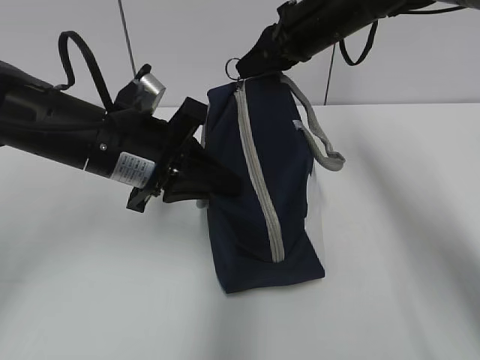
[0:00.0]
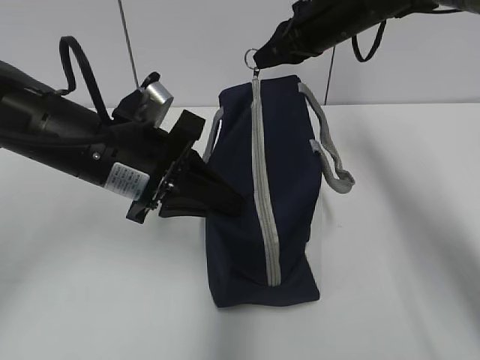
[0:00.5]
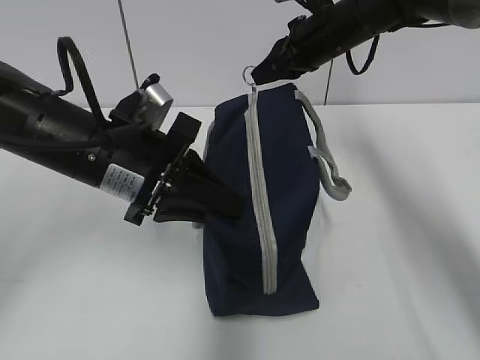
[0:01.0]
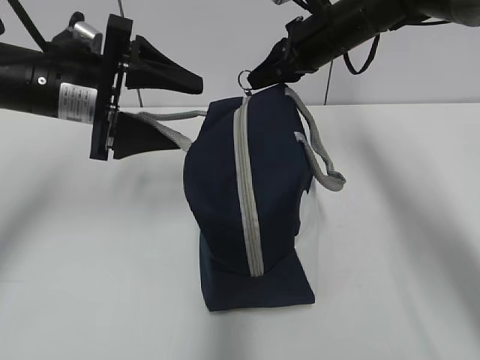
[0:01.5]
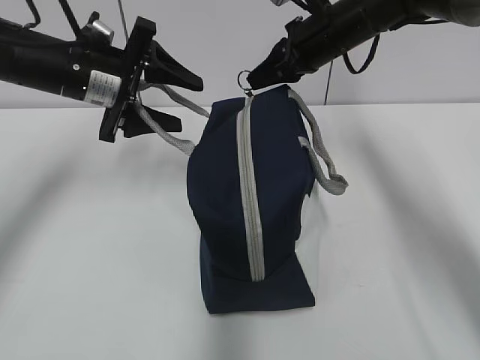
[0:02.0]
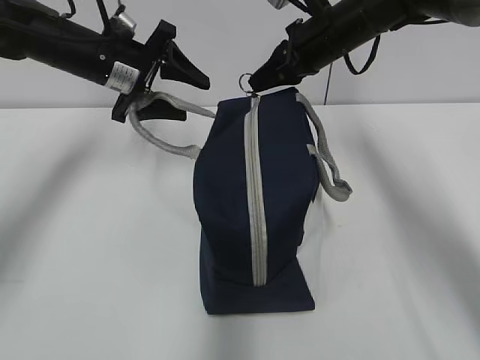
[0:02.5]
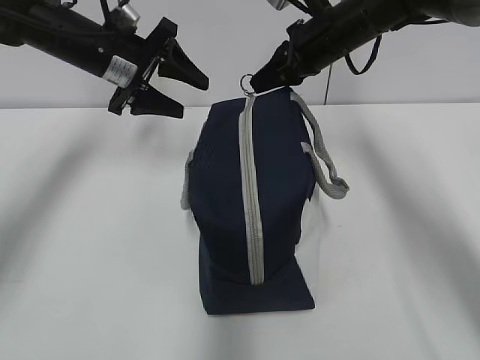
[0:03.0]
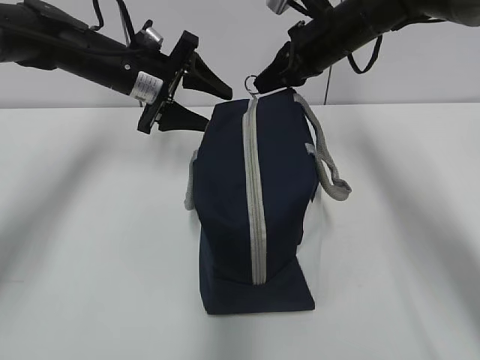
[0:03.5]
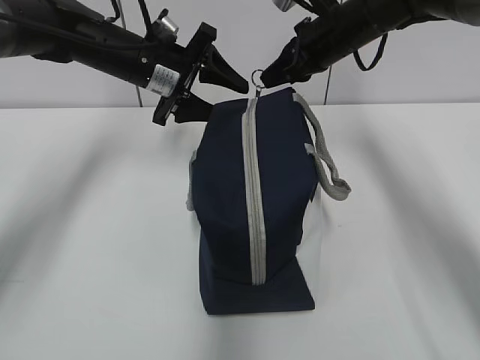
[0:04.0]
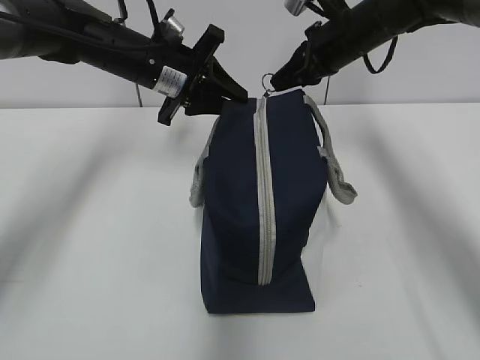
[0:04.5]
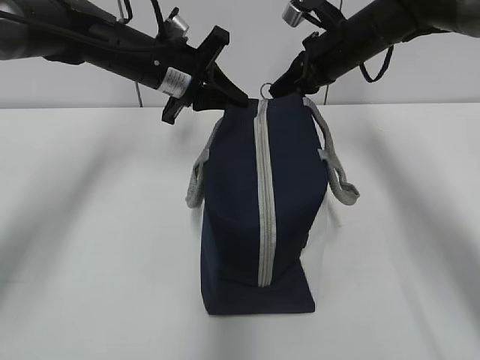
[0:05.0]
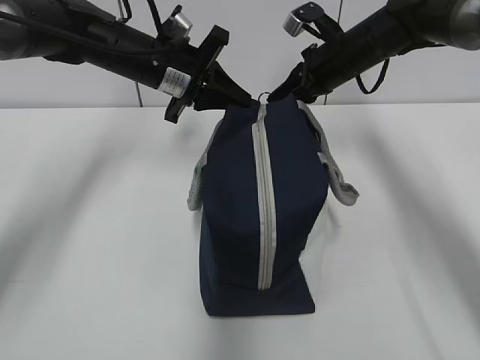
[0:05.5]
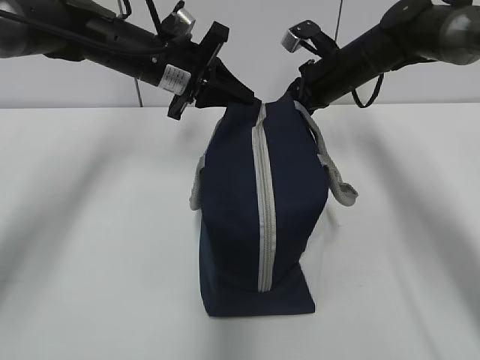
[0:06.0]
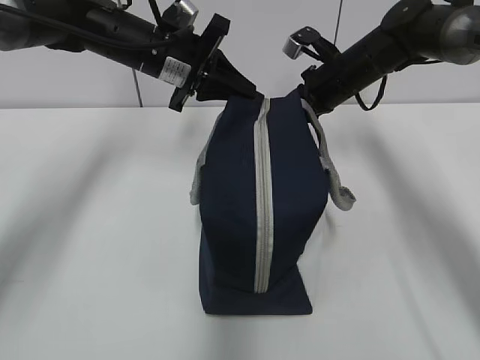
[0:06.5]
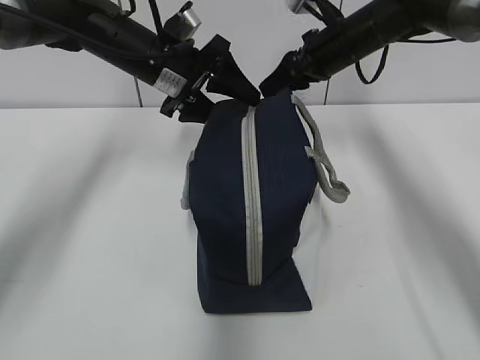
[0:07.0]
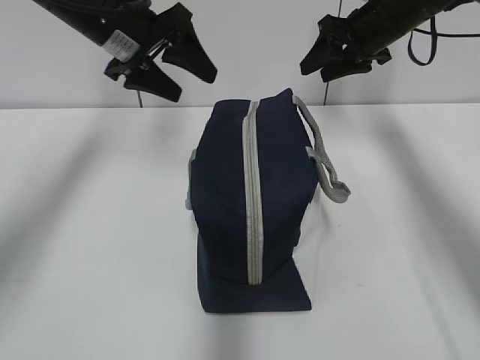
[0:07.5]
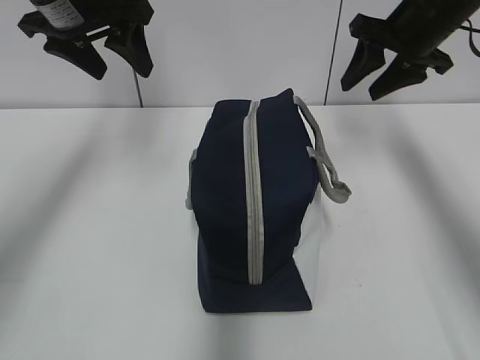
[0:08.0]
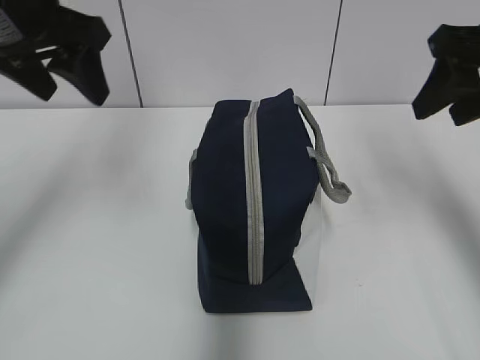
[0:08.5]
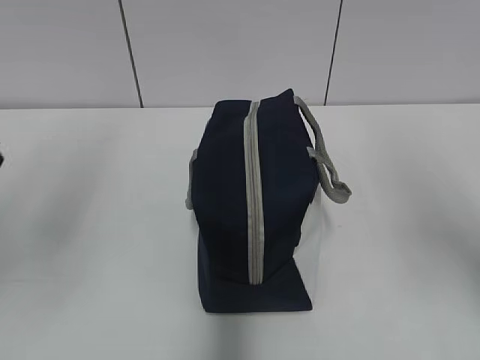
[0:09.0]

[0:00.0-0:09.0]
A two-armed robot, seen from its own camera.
0.0 to 2.0 s: The left gripper heads forward and to the left, covering about 10 cm, and opens its fingers.
2.0 to 4.5 s: The left gripper is displaced forward and to the right by approximately 10 cm, and closes.
4.5 to 7.0 s: The left gripper opens. Meanwhile the right gripper opens its fingers.
7.0 to 9.0 s: The left gripper is displaced backward, to the left and upward by approximately 30 cm. Meanwhile the right gripper moves backward, some 30 cm.

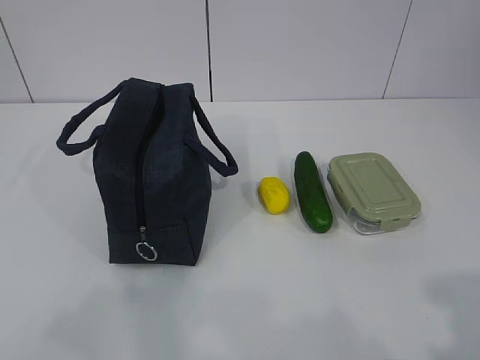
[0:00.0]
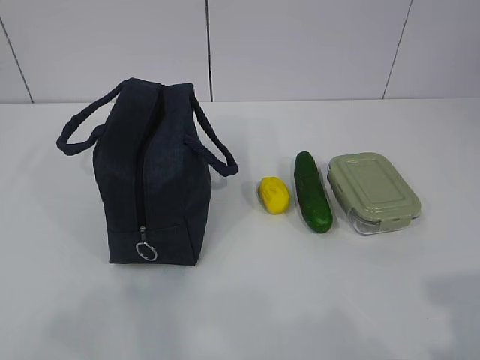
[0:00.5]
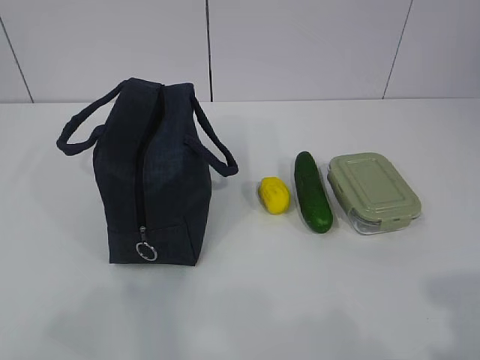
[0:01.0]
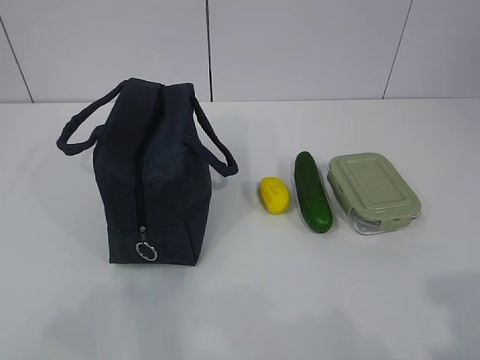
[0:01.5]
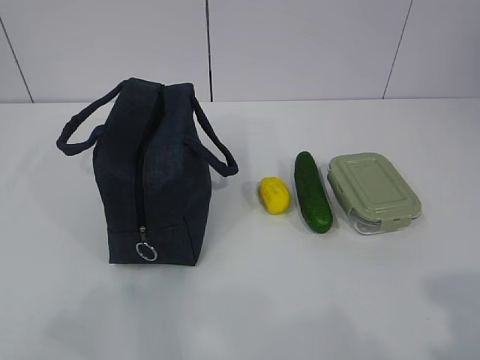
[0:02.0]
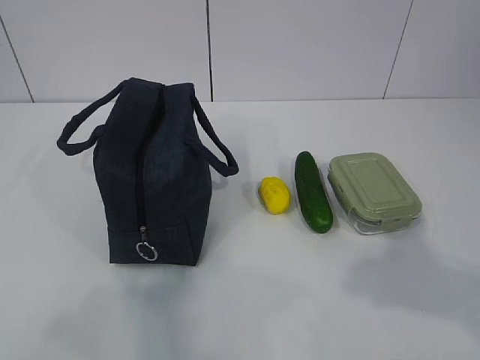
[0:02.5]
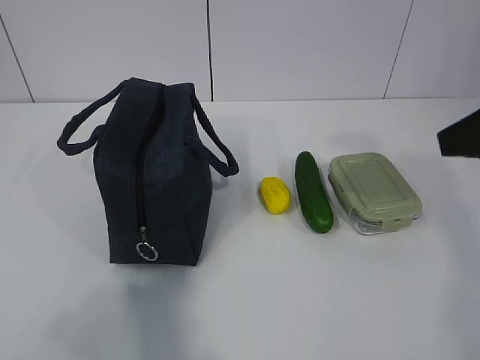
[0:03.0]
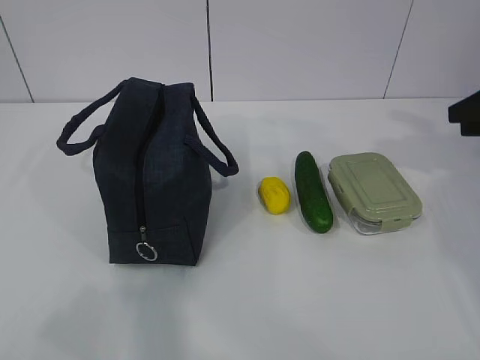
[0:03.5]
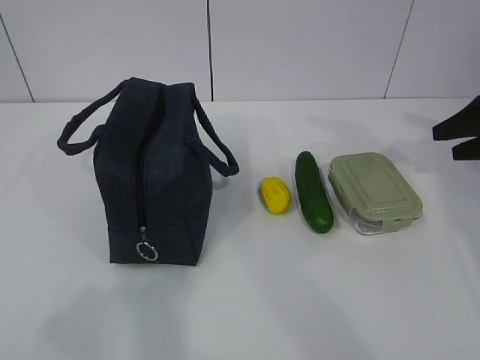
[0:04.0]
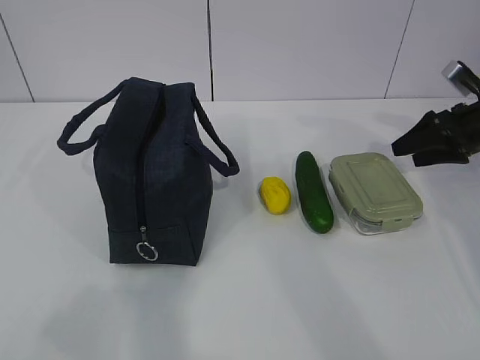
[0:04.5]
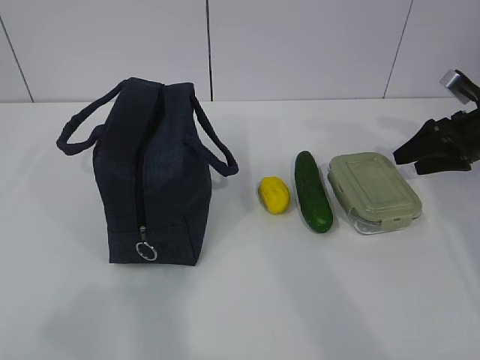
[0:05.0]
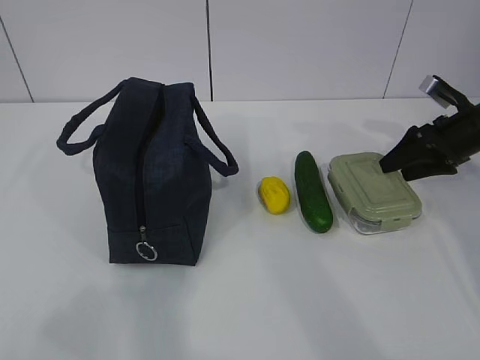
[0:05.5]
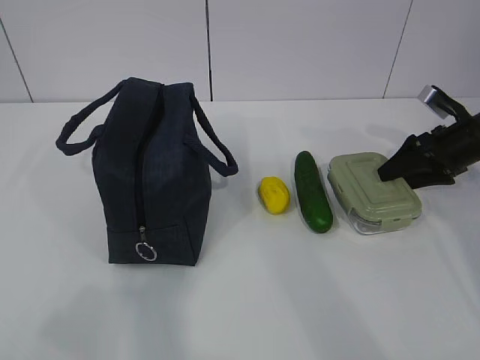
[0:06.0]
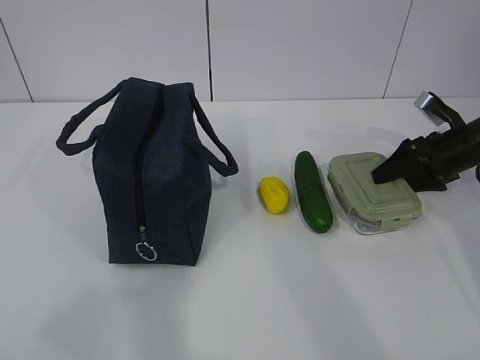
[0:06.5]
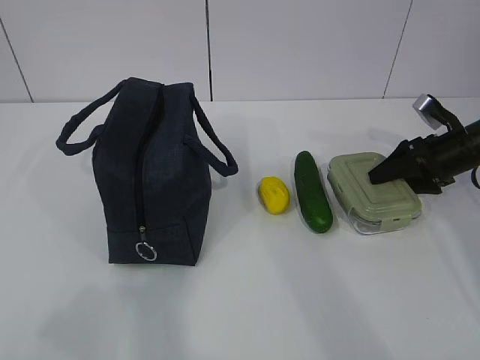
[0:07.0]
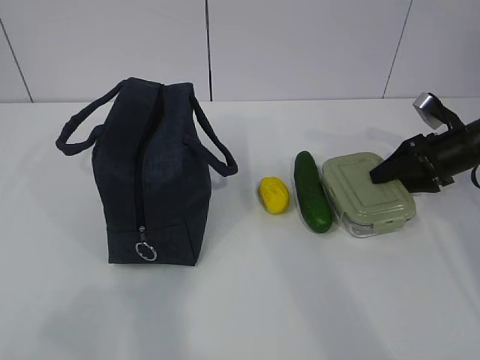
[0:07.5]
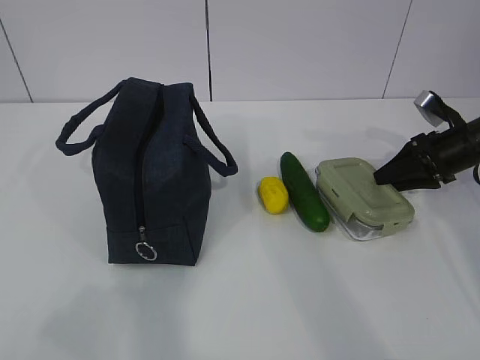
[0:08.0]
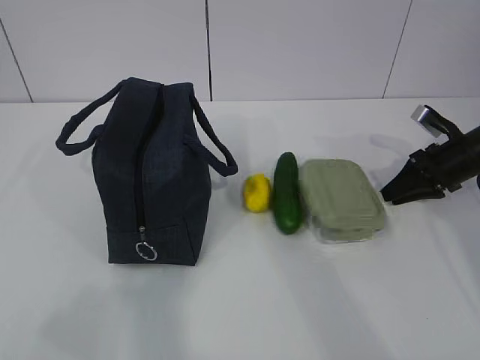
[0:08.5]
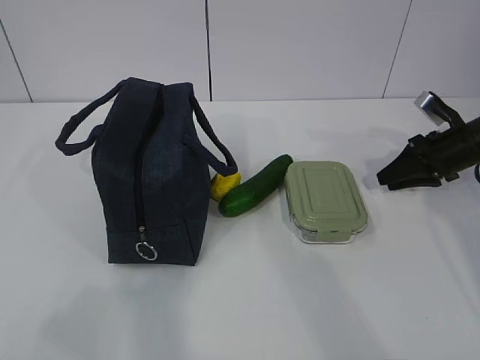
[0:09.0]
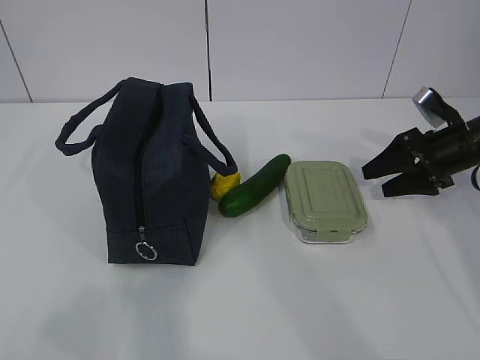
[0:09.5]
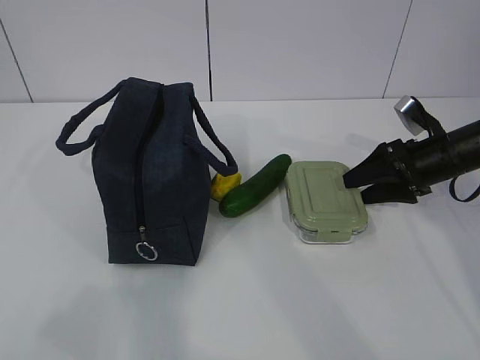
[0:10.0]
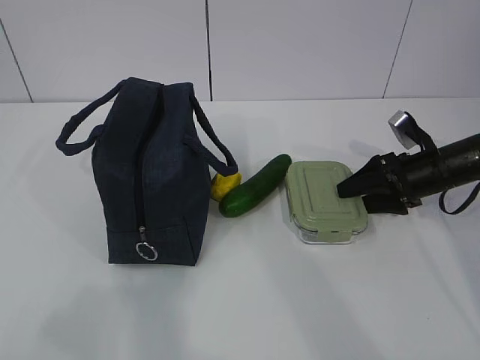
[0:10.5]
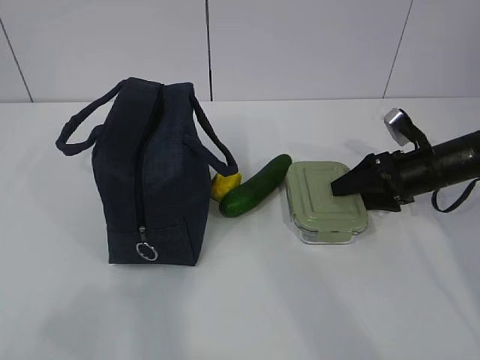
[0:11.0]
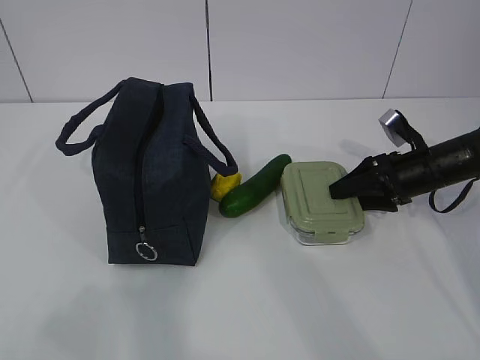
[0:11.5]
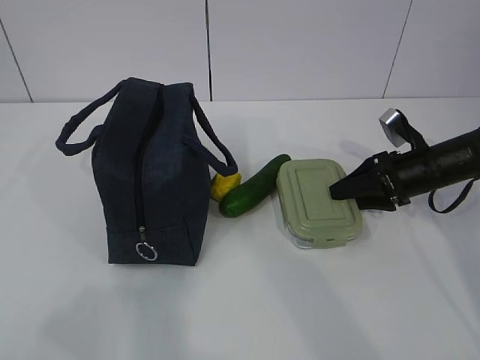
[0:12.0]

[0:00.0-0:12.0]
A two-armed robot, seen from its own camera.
Step, 0.0 to 10.0 s: Grab the lunch box with your right hand.
2.0 to 4.0 s: The right gripper travels forward by some 40 cm, and opens up.
4.0 to 6.0 s: The right gripper shifts about 5 cm downward.
6.0 to 8.0 s: The right gripper closes up.
8.0 to 10.0 s: The right gripper ends up about 5 cm from where it was, and opens.
10.0 to 12.0 s: The grippers move only a little.

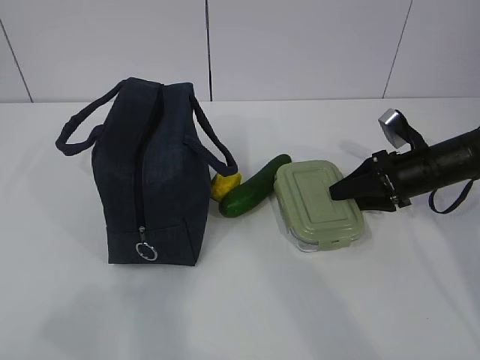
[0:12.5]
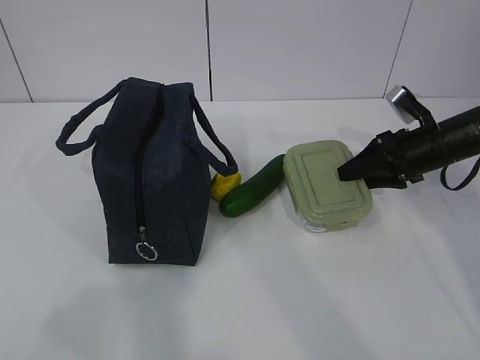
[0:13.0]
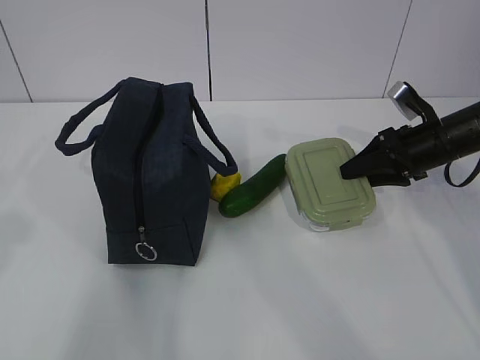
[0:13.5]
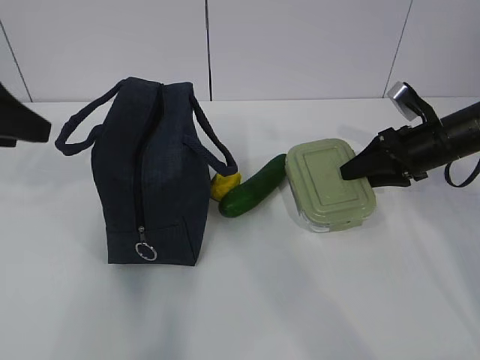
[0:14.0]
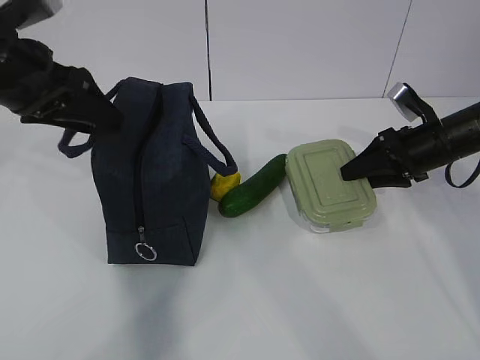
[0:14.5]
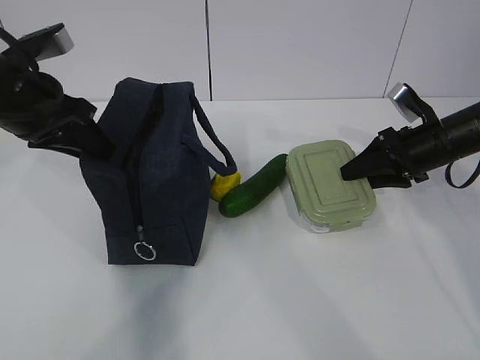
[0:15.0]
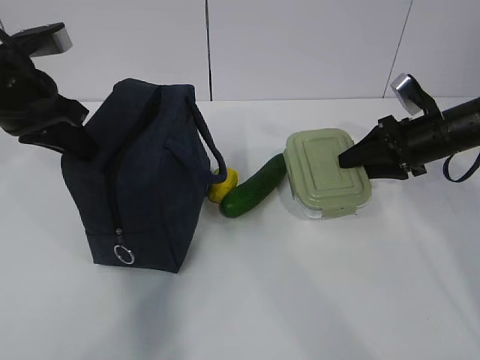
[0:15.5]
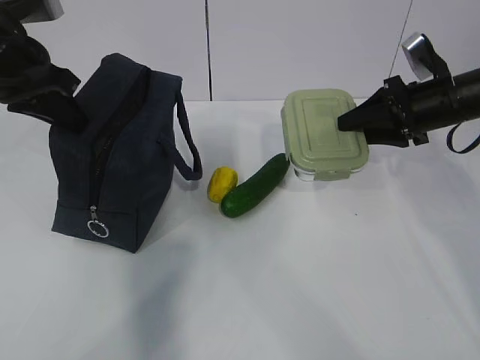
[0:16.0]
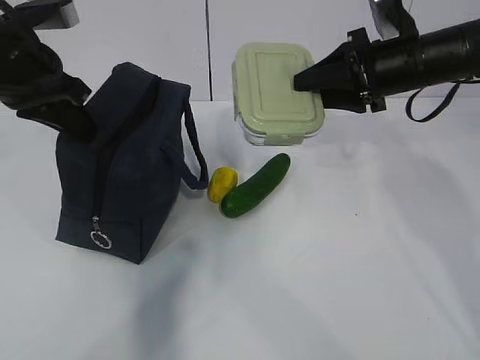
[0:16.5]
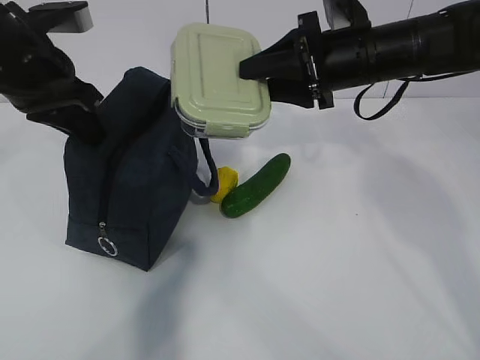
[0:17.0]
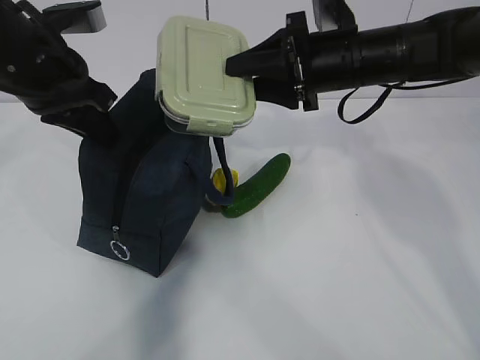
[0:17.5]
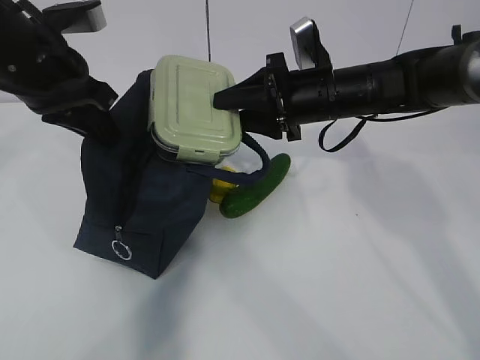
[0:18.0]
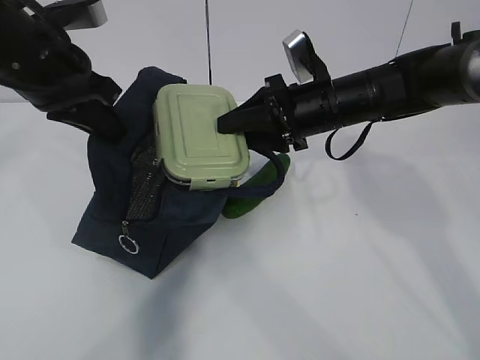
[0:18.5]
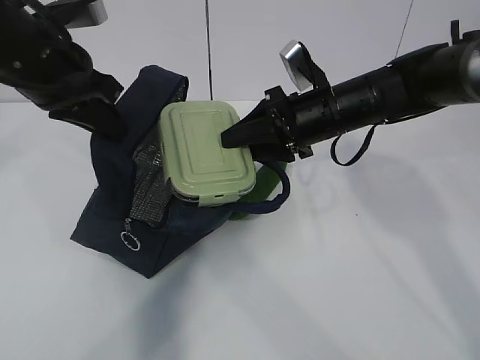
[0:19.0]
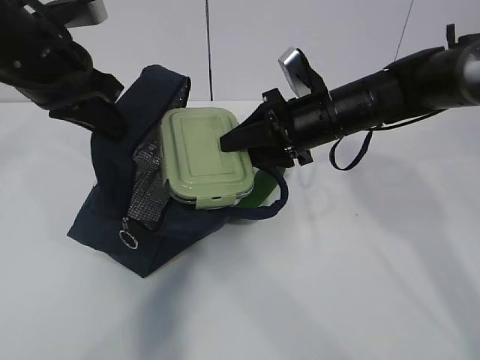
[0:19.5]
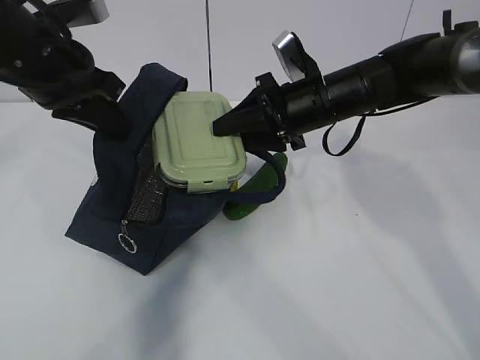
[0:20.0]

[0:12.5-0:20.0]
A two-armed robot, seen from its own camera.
Step, 12.5 to 14.5 s: Grab the lunch bag with your left hand.
Step, 15.0 to 19.0 s: Place it into the bag with your right hand.
12.5 to 14.5 s: The left gripper moves forward, about 35 cm, and opens.
14.5 to 16.5 s: The right gripper heads upward and to the left, covering about 15 cm, while the left gripper closes.
16.5 to 18.0 s: The right gripper moves to the left, approximately 10 cm.
18.0 to 20.0 s: The grippers make only small movements.
